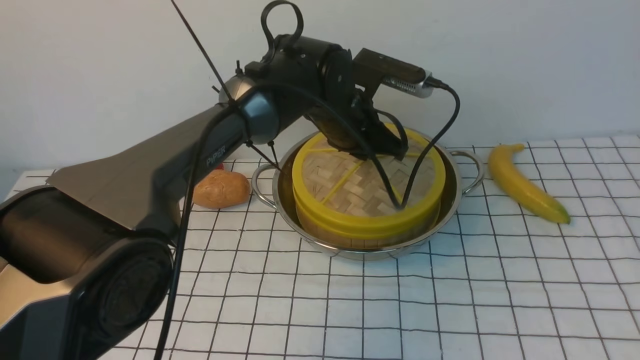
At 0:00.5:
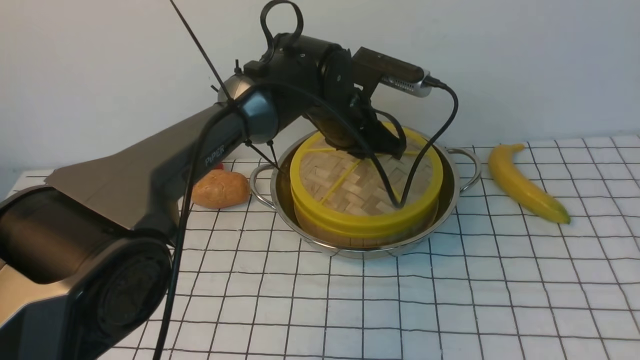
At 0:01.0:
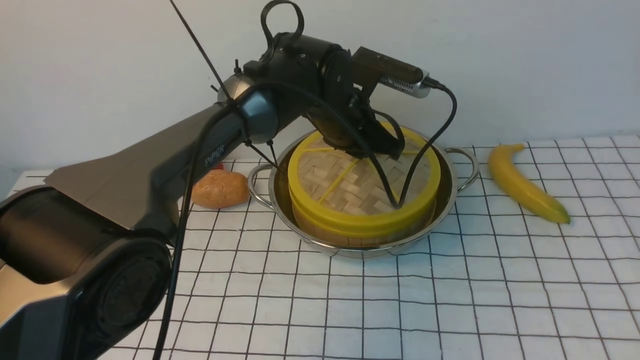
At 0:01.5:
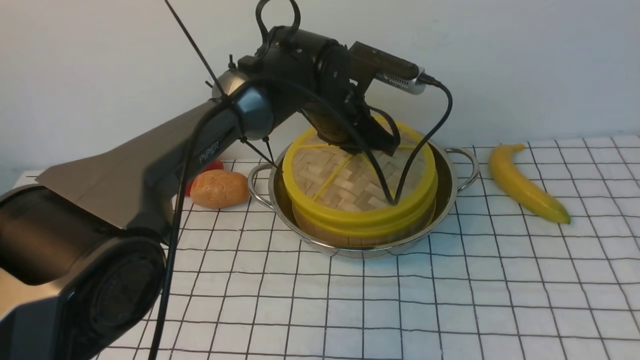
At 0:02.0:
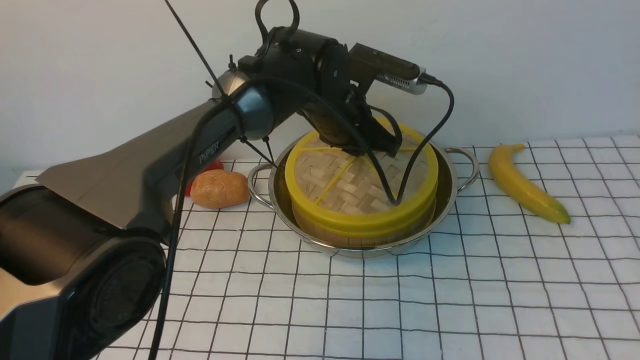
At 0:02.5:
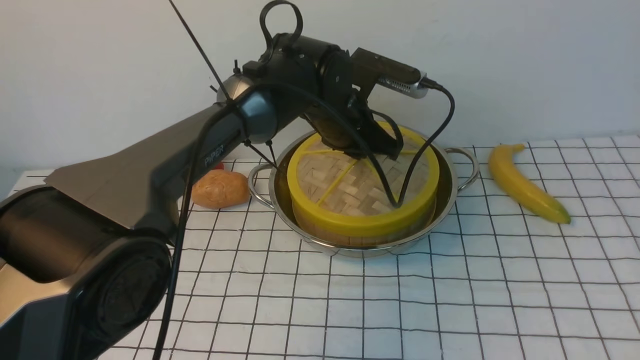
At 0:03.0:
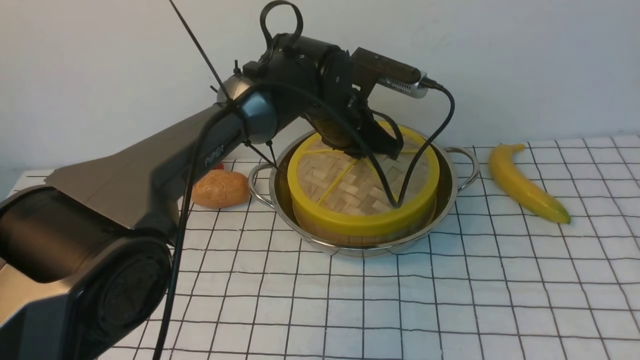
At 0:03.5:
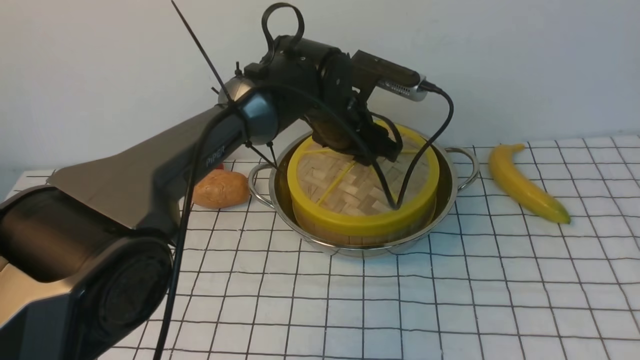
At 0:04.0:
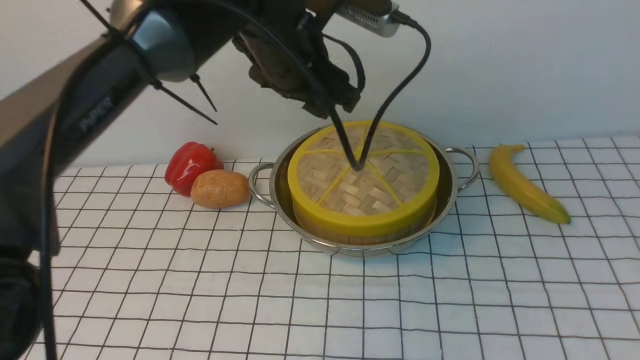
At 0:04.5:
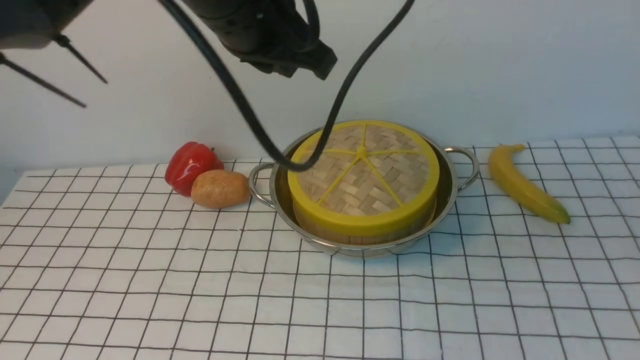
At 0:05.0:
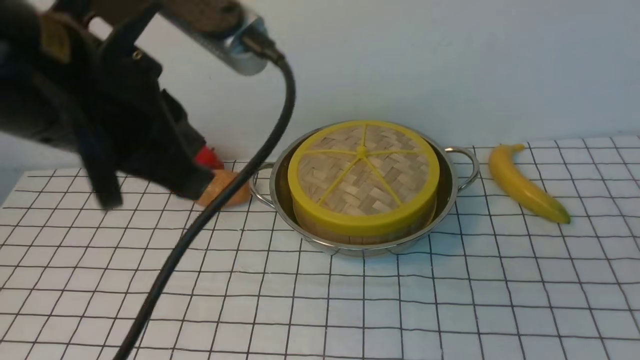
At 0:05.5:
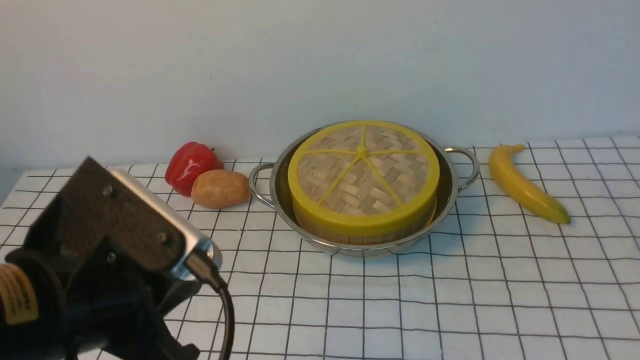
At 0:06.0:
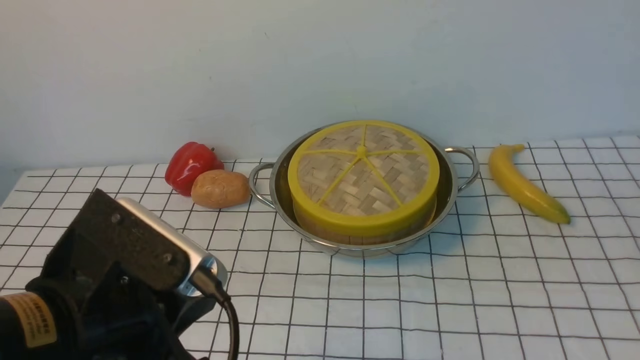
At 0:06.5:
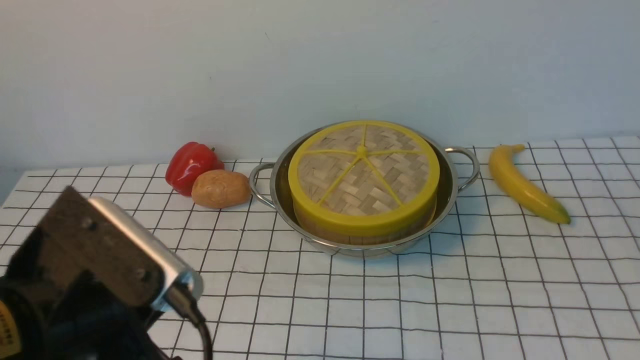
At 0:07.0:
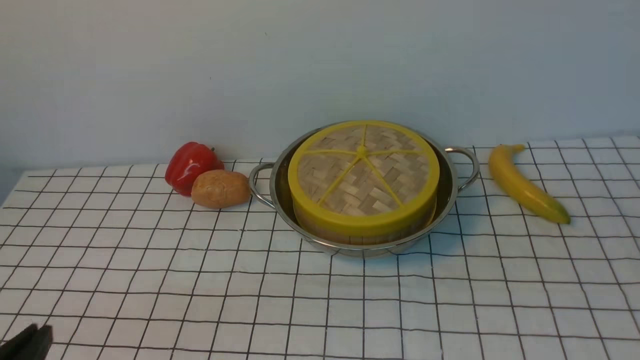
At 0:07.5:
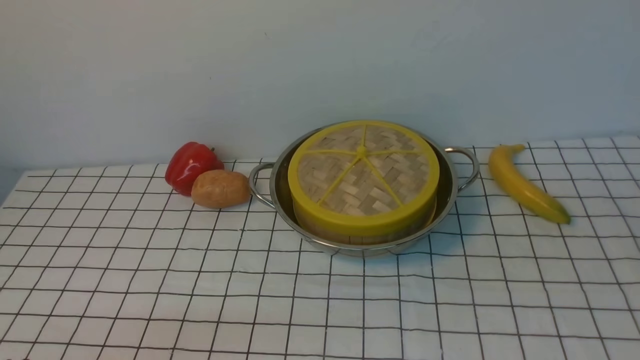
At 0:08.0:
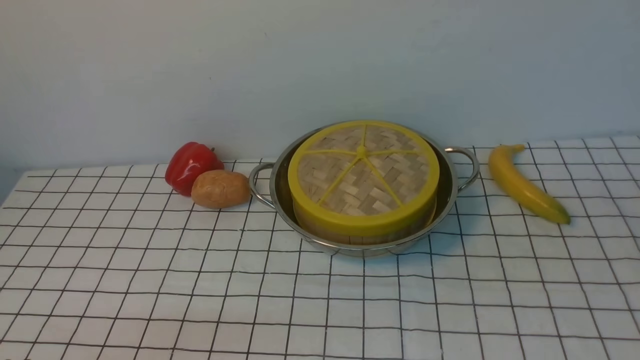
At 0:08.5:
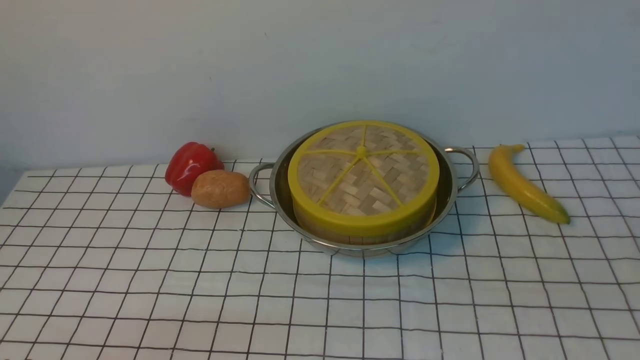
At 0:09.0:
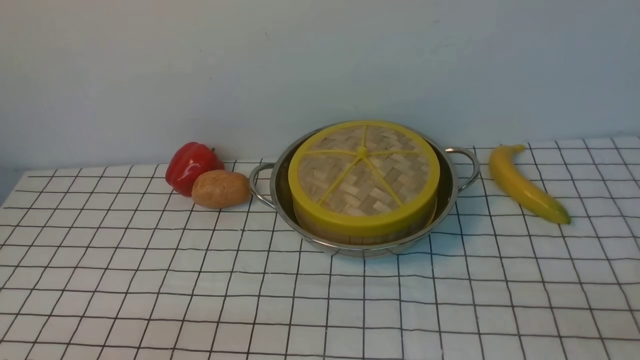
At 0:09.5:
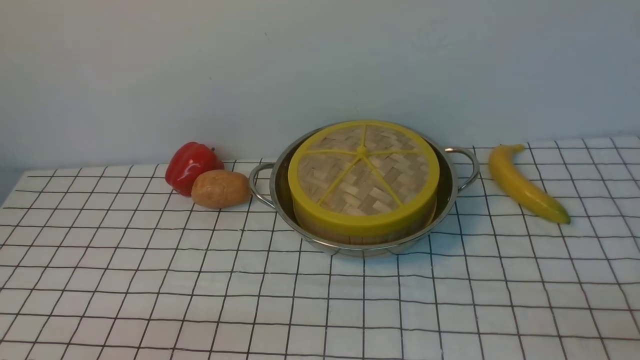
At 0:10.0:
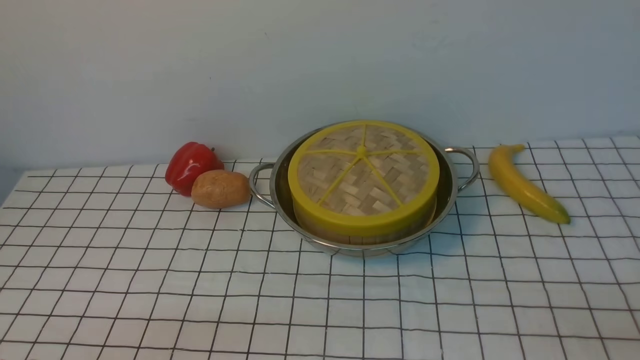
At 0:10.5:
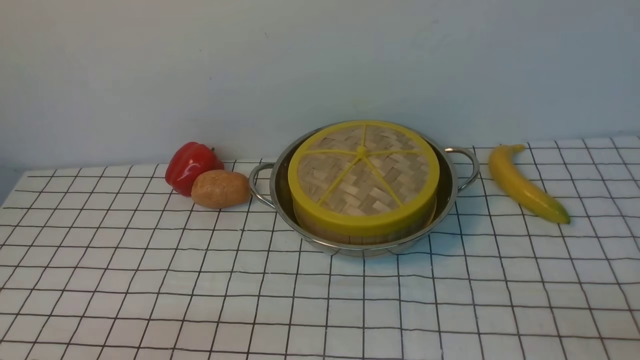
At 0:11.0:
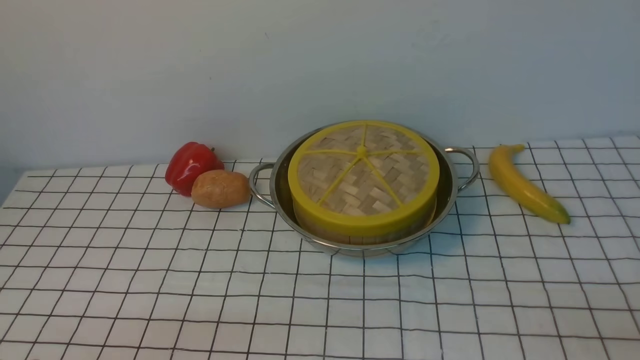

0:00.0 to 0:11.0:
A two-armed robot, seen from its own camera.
Task of the whole recording: place the steamer in the pot on the white tablecloth, and put the lid on the steamer.
Step, 0:00.0 to 0:03.5: use the left arm to place the steamer lid on the steamer.
0:00.0 to 0:02.0: Neither gripper changes place.
0:02.0 to 0:03.5: The left gripper opens.
0:03.5 to 0:05.5: The right gripper moves downward, roughly 20 cm, and closes. Meanwhile the left gripper heads backward and to the left, covering some 35 cm, and closes.
0:05.5 to 0:07.5: The right gripper opens its fingers; the left gripper travels downward, to the left and backward by about 20 cm.
0:09.0 to 0:11.0: Both grippers stay put.
